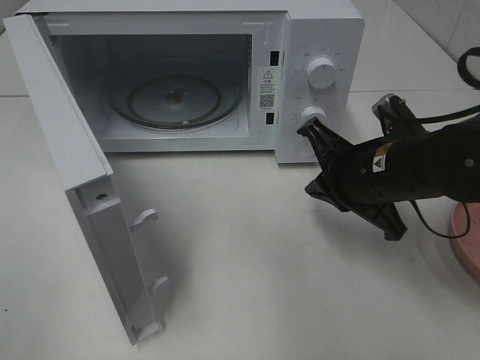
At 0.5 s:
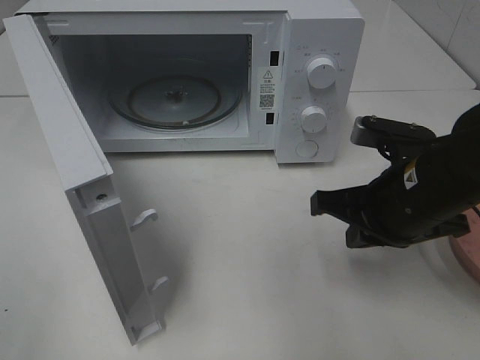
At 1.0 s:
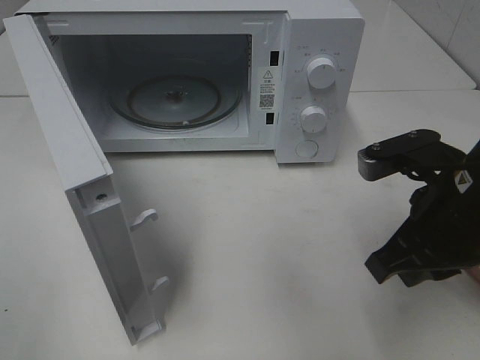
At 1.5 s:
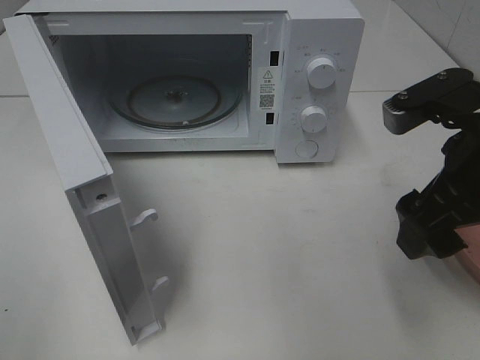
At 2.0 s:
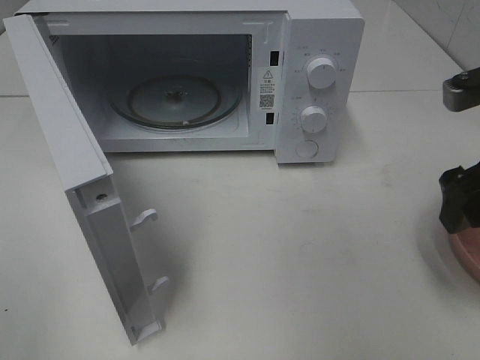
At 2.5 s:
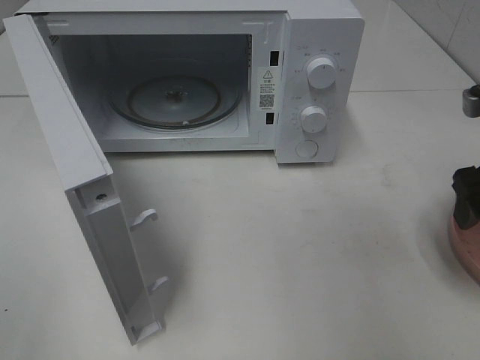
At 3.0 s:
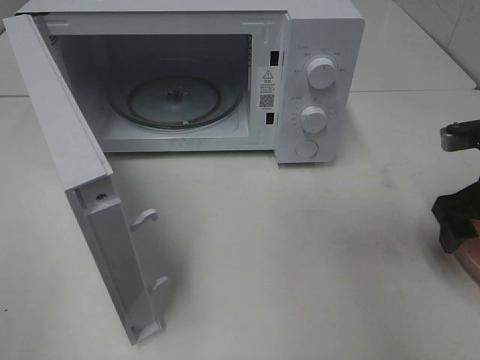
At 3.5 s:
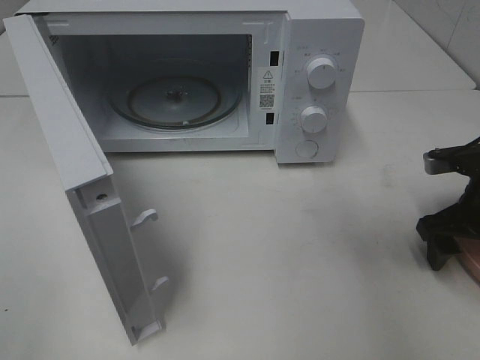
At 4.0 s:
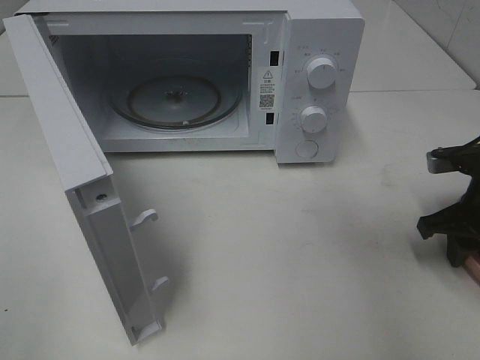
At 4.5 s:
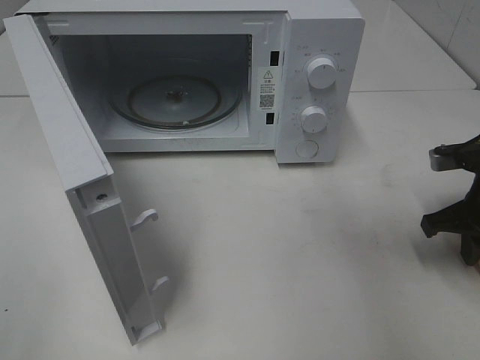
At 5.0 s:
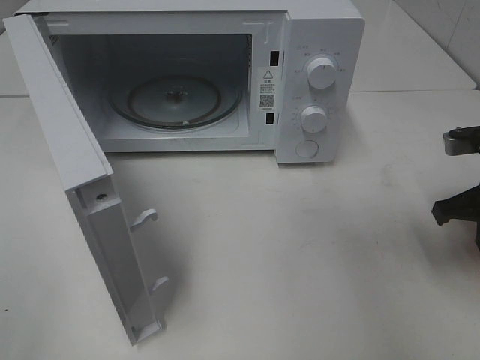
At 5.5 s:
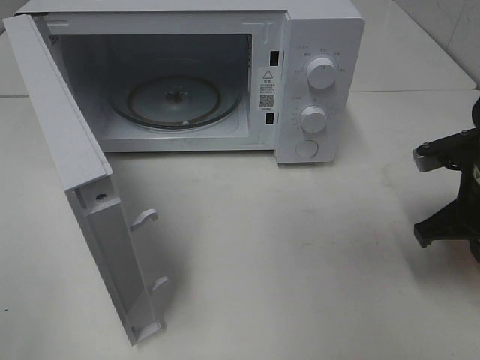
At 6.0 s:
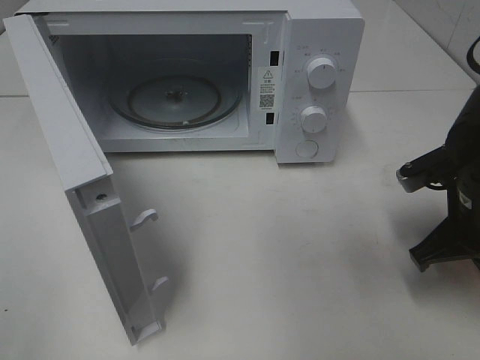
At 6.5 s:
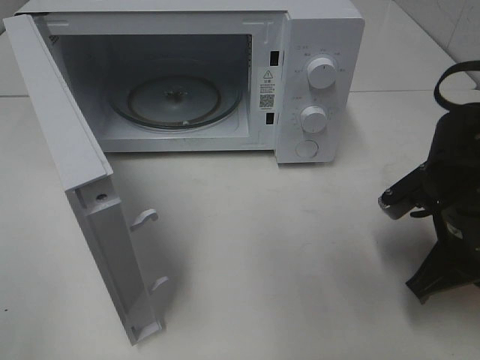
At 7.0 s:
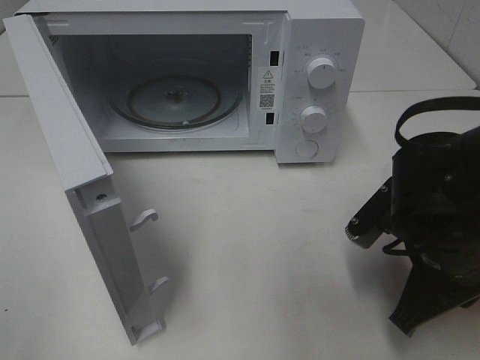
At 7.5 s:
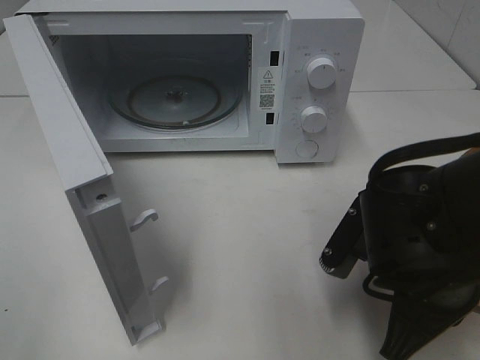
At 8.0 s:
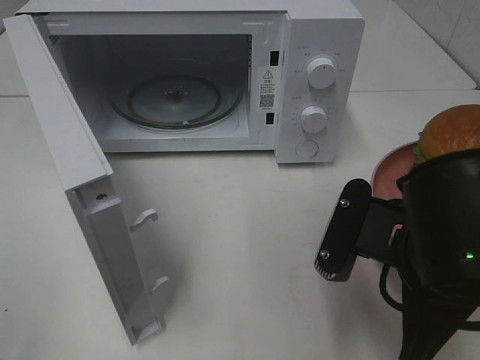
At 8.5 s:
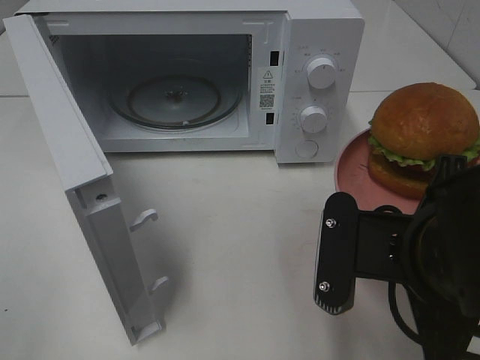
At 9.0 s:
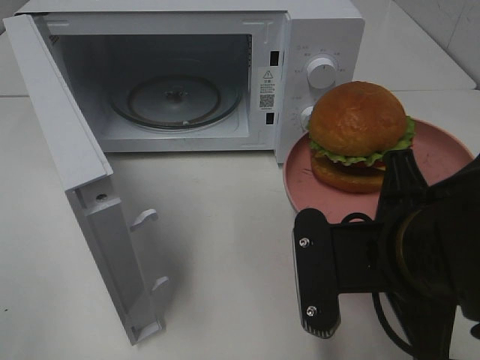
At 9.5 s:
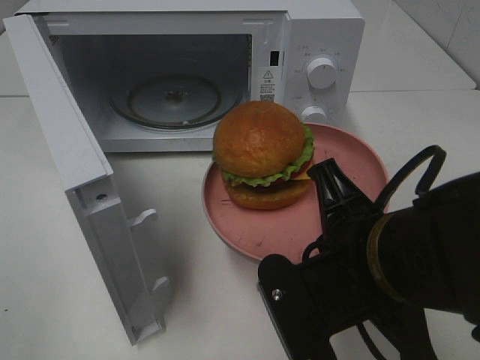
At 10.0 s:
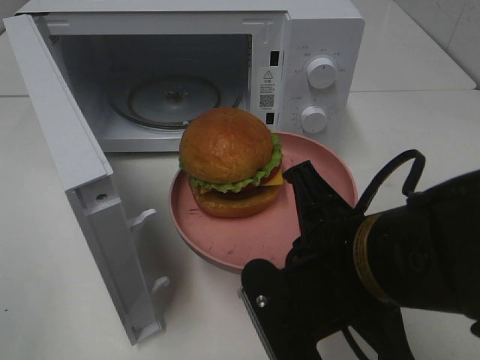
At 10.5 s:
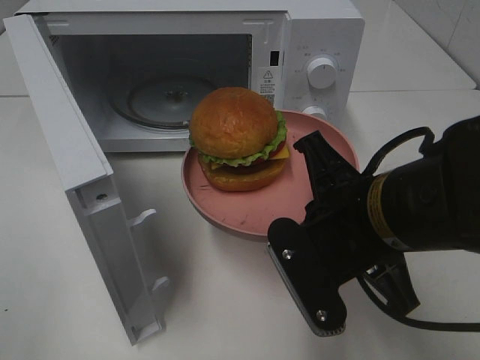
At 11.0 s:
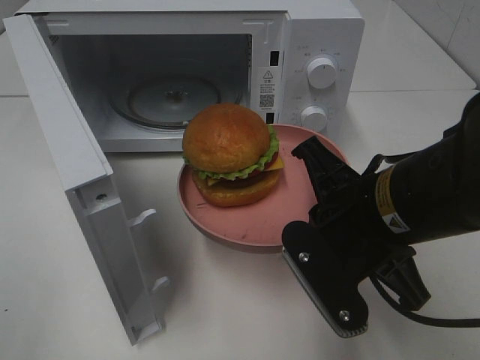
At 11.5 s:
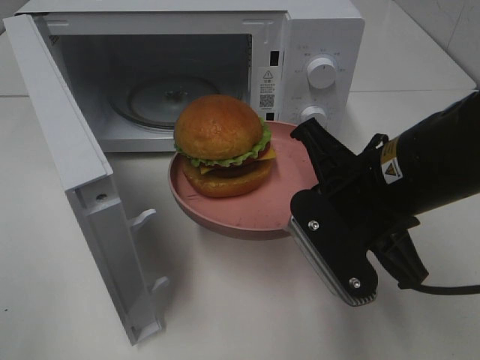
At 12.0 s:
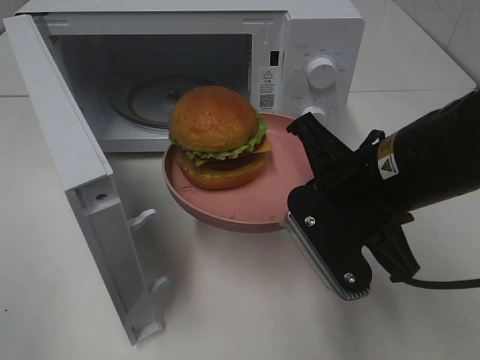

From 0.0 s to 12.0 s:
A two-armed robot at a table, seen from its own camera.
Task of the whole recording: Heat the burger.
Step, from 0.0 s to 5.0 s: Right hand: grab the plate with the hamburger.
From 0.0 s to 2.0 s: The right gripper moves to the right and upward, about 15 cm, and opens up.
From 2.0 s to 4.0 s: The right gripper is displaced downward and forward by about 15 cm, and closes its fingers.
From 4.0 s to 6.0 s: The right gripper heads to the left, covering some 5 cm.
From 6.0 s to 8.0 s: The right gripper heads to the left and backward, covering about 15 cm.
From 8.0 s to 10.0 s: The right gripper is displaced to the left by some 5 cm.
From 10.0 s to 12.0 s: The right gripper travels forward by approximately 5 cm.

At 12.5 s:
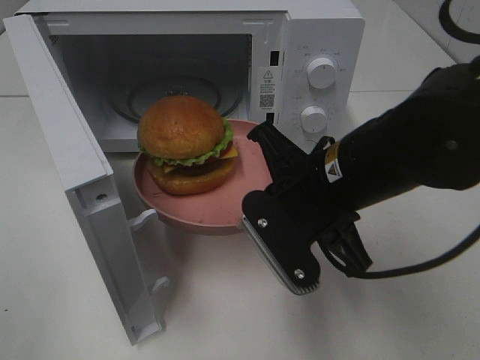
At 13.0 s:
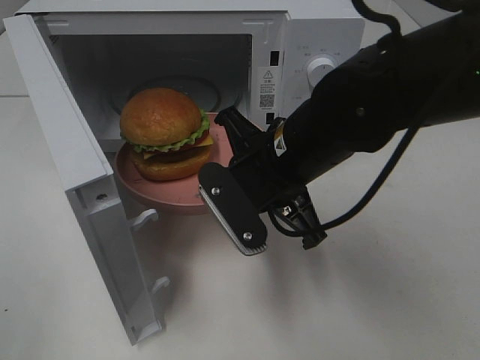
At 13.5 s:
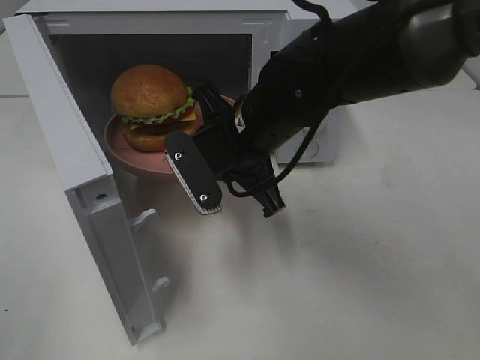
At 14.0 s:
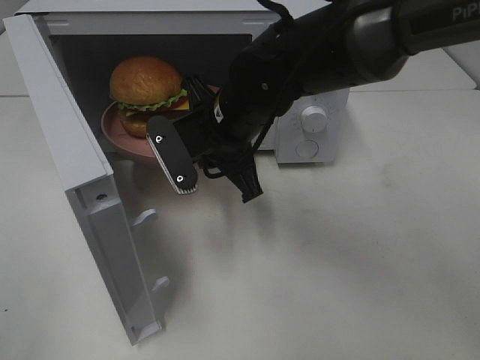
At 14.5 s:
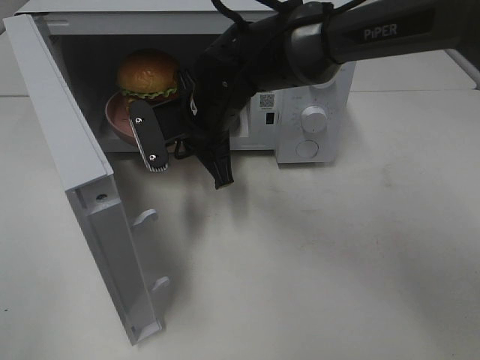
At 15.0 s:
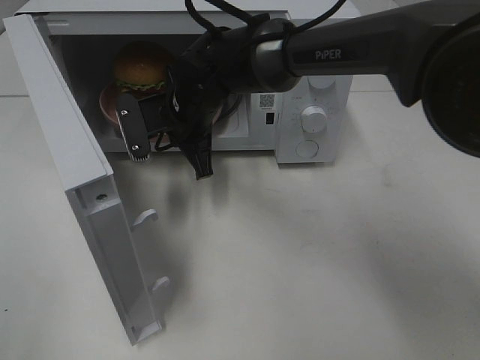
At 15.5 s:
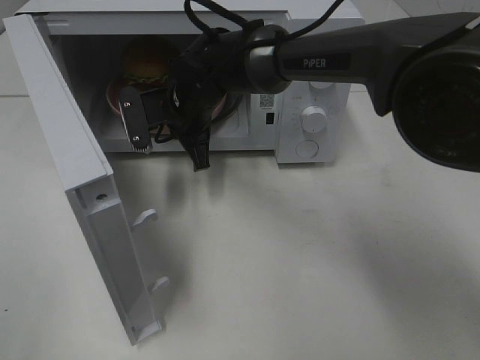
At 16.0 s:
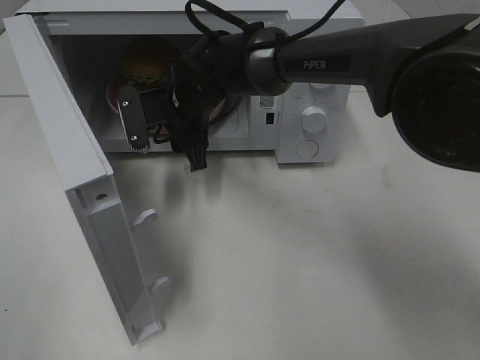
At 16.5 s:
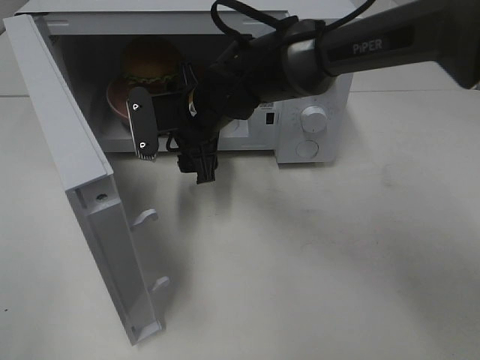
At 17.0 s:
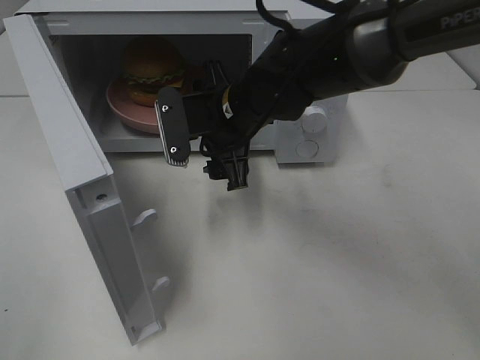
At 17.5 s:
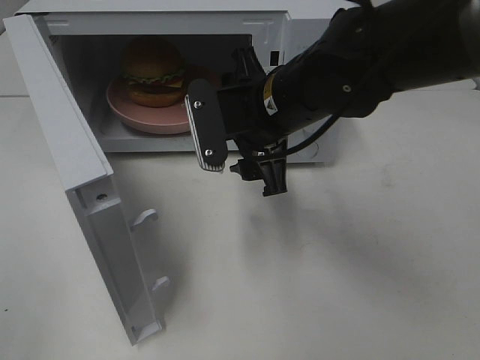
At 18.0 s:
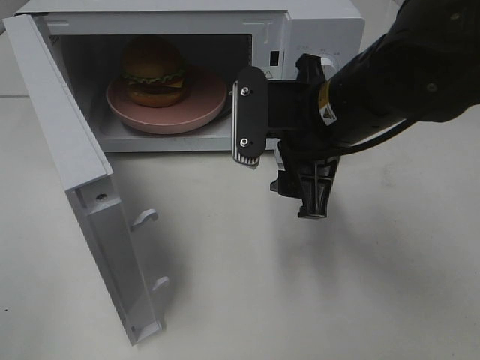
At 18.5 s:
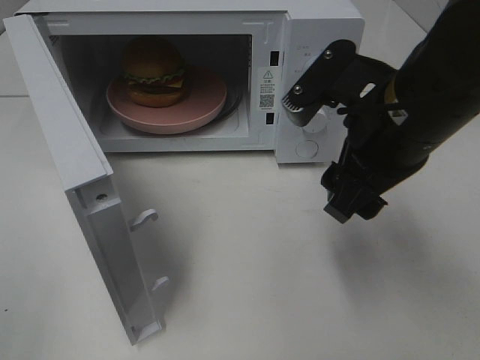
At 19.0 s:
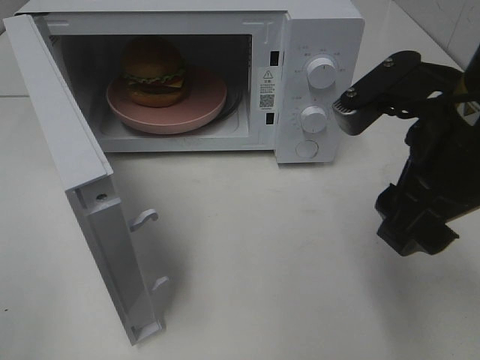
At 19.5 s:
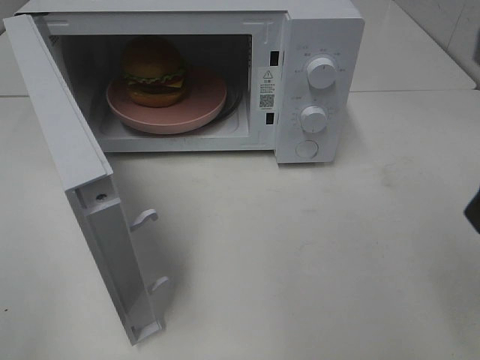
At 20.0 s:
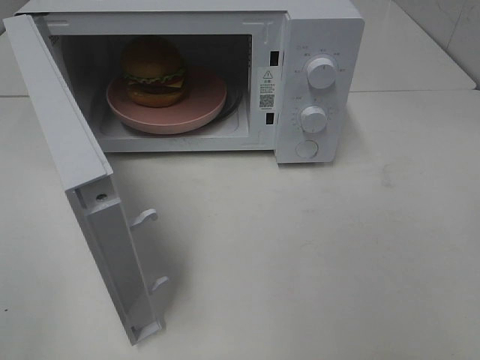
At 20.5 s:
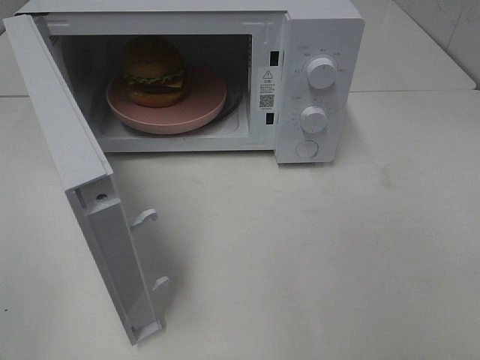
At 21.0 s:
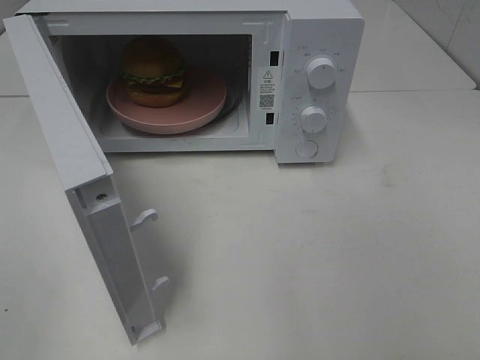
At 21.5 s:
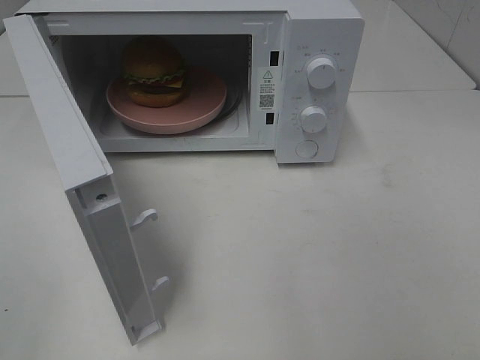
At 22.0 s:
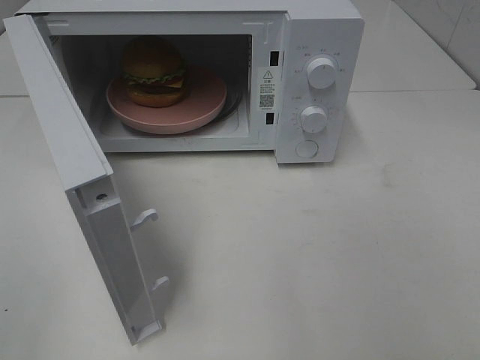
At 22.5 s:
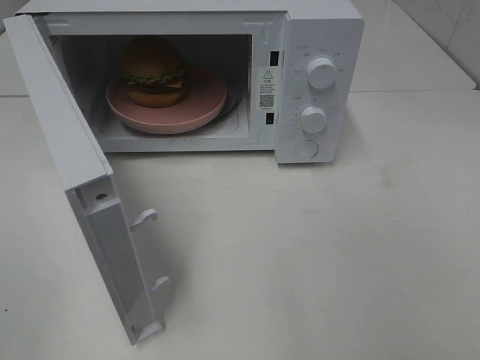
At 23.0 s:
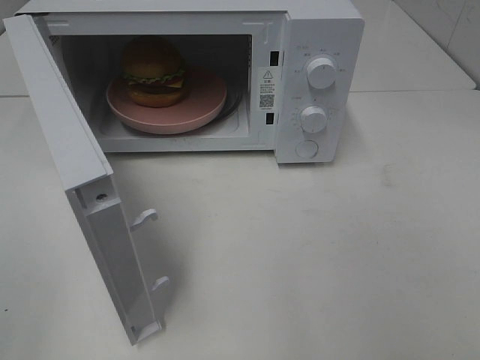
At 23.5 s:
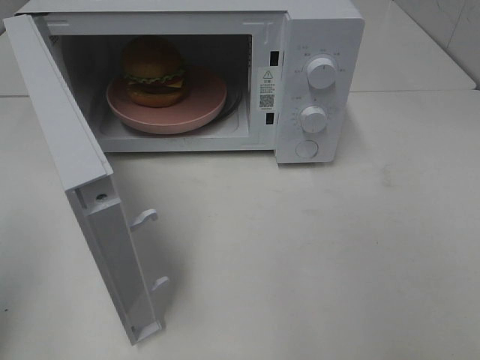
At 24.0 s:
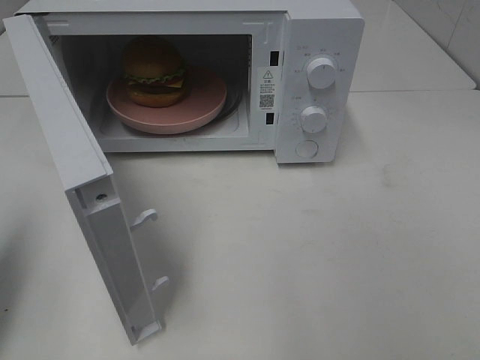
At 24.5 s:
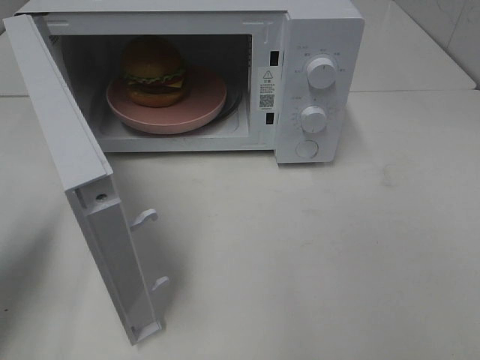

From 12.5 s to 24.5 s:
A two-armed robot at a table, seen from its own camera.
Task of the whole recording: Heat the burger.
Step, from 12.5 s to 15.5 s: Right hand: place the plate in the microwave.
From 12.5 s to 14.5 s: The right gripper travels forward and to the left by roughly 20 cm.
From 14.5 s to 16.5 s: The right gripper opens up.
From 16.5 s to 18.5 s: The right gripper travels to the right, backward and upward by roughly 25 cm.
From 18.5 s to 20.5 s: The right gripper is displaced backward and to the right by some 25 cm.
From 22.5 s to 24.5 s: The left gripper goes some 20 cm forward and downward, and closes.

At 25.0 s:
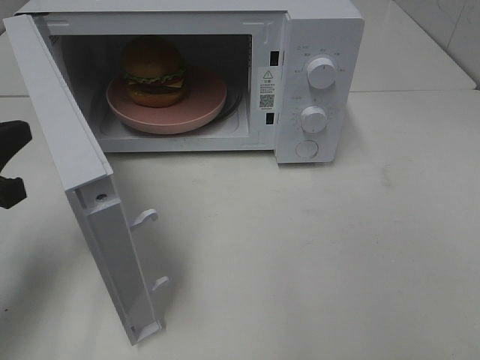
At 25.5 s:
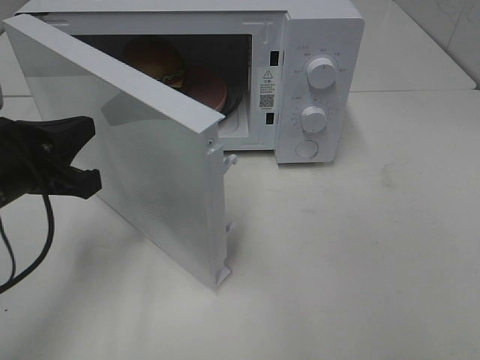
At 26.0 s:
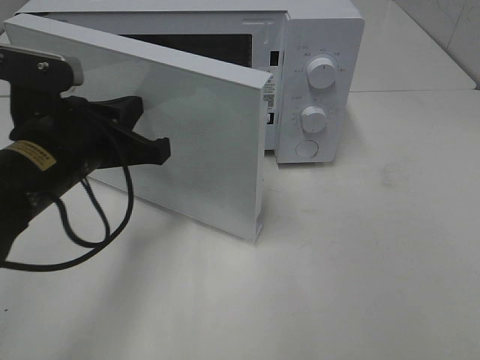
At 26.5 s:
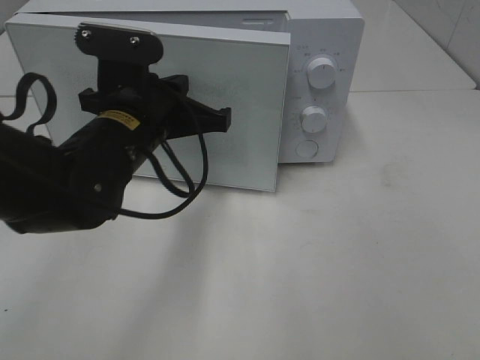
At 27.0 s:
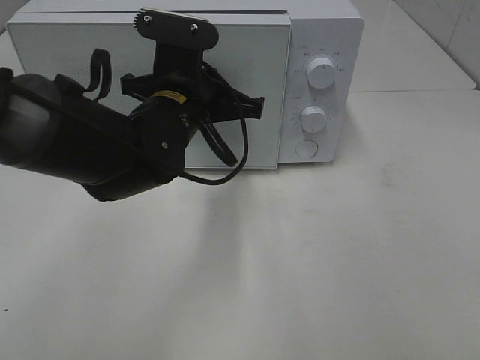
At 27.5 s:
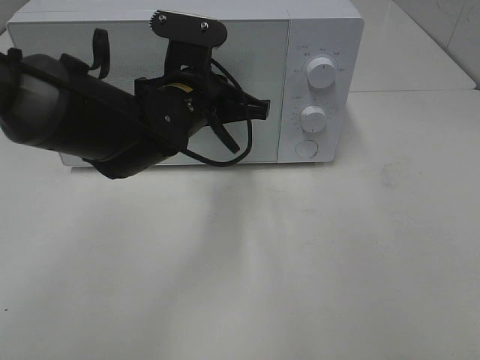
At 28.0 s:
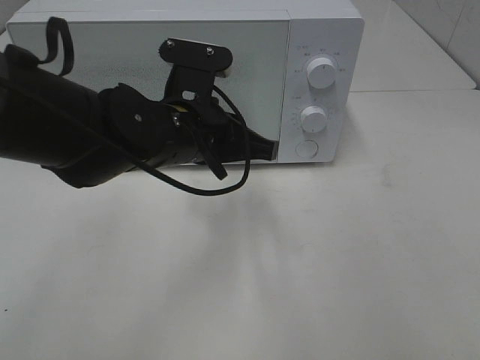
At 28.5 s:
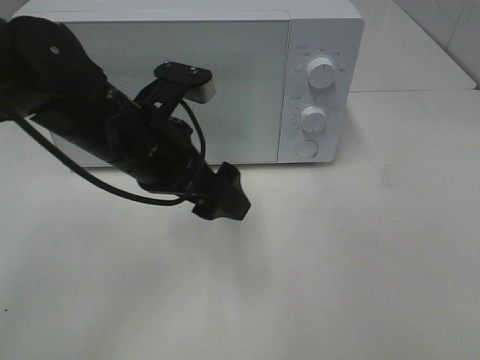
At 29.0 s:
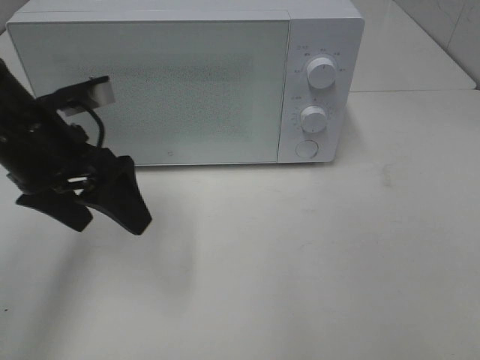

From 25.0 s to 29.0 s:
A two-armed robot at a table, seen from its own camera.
Task of the whole recording: Heat the burger.
Step, from 25.0 s to 28.0 s: Left hand: close the microwave door.
From 25.0 s to 27.0 s: The left gripper goes roughly 25 cm to the right and forward.
From 27.0 s to 29.0 s: The left gripper travels to the left by about 15 cm, and opens its fingers.
